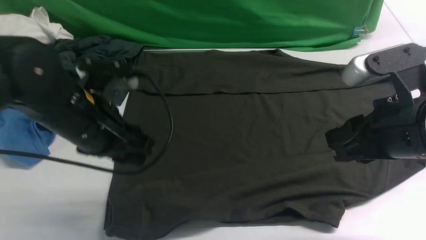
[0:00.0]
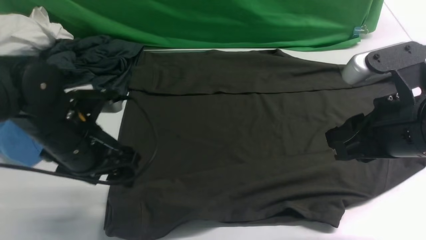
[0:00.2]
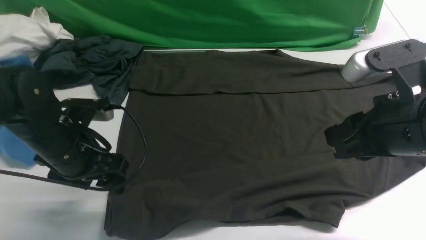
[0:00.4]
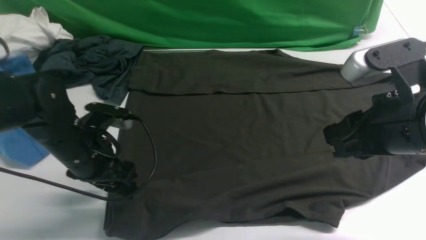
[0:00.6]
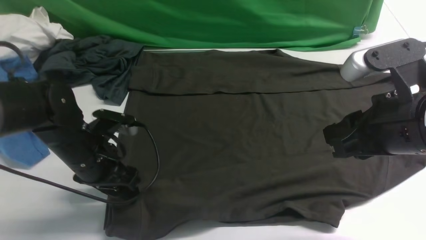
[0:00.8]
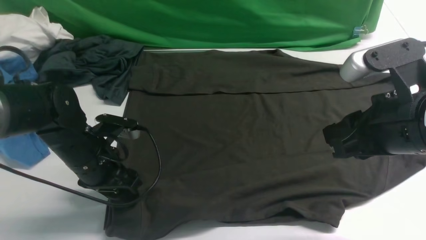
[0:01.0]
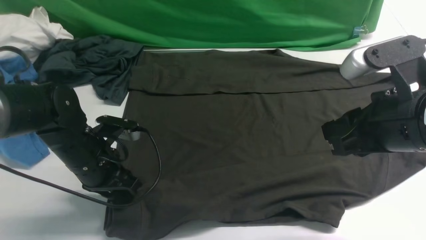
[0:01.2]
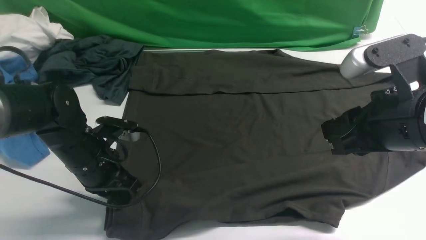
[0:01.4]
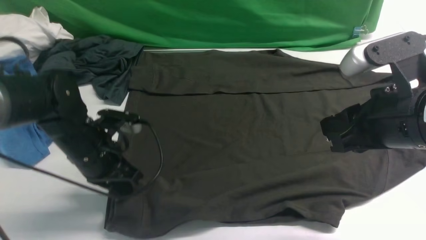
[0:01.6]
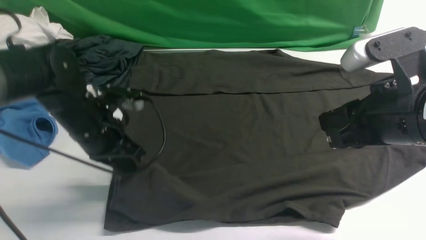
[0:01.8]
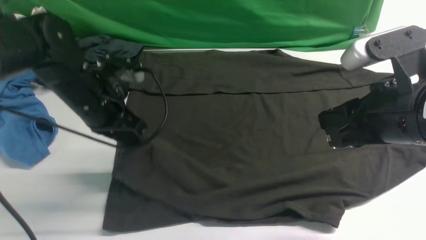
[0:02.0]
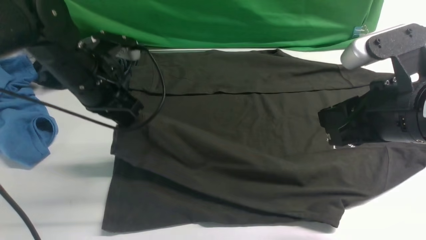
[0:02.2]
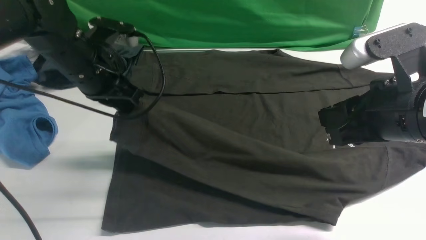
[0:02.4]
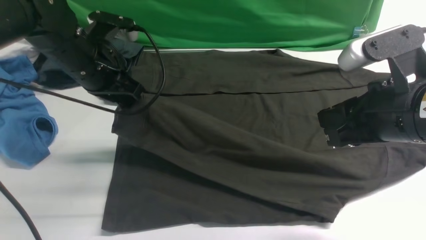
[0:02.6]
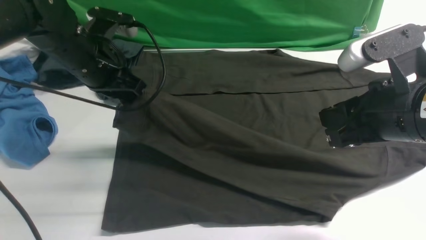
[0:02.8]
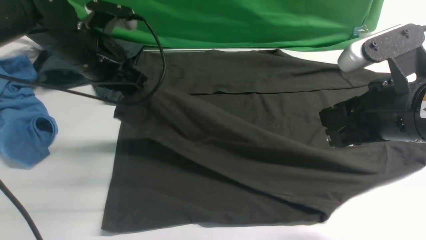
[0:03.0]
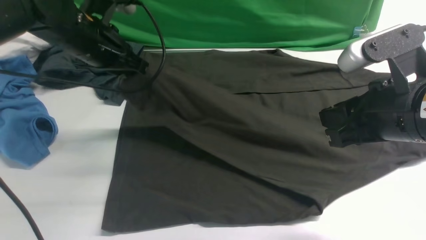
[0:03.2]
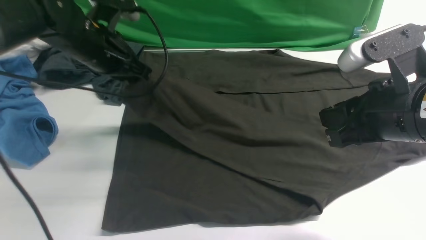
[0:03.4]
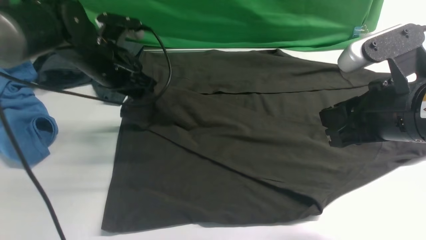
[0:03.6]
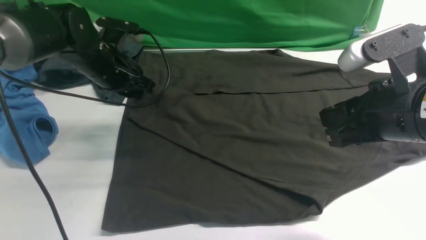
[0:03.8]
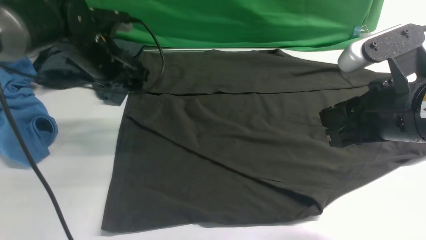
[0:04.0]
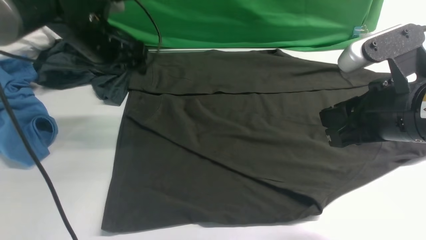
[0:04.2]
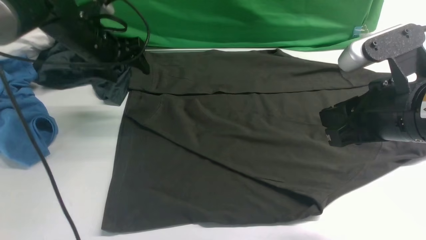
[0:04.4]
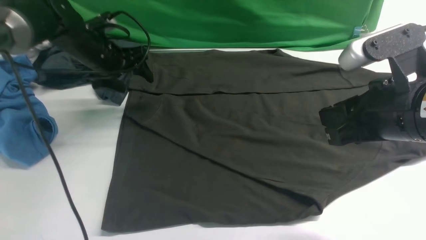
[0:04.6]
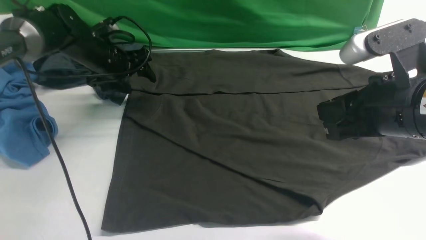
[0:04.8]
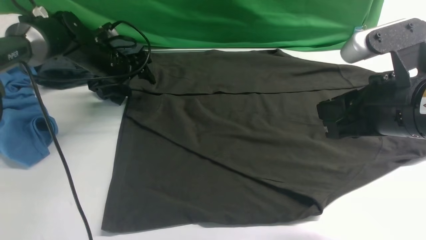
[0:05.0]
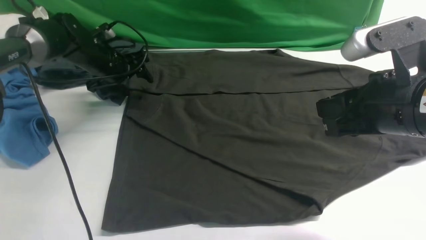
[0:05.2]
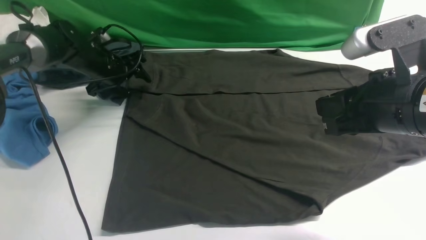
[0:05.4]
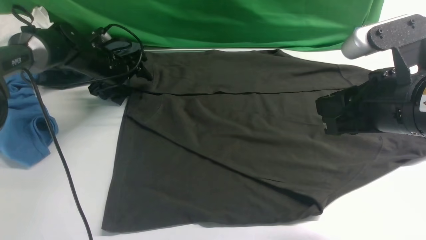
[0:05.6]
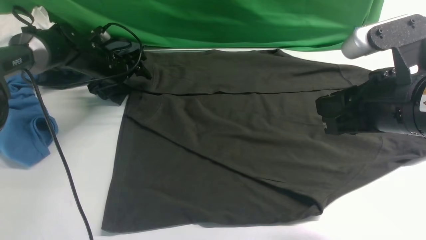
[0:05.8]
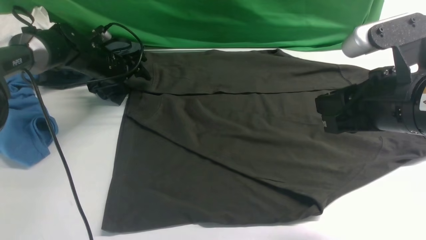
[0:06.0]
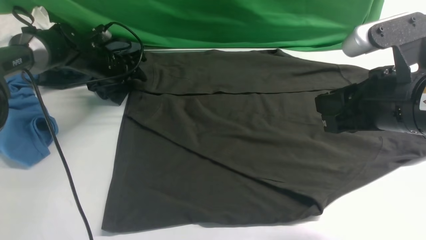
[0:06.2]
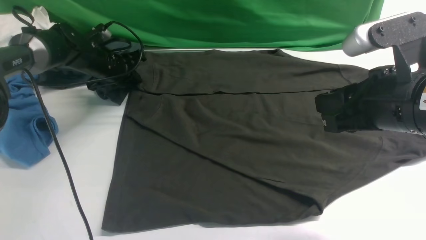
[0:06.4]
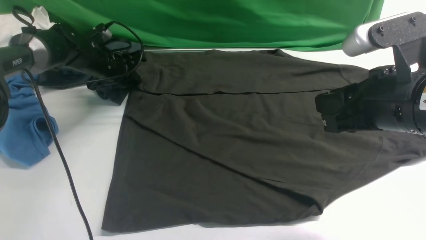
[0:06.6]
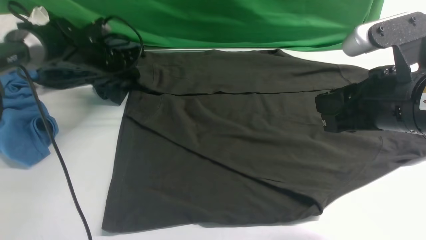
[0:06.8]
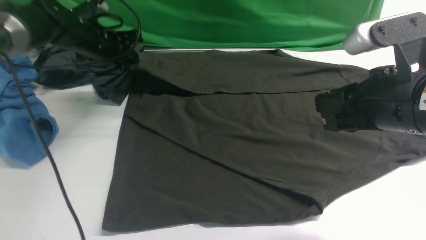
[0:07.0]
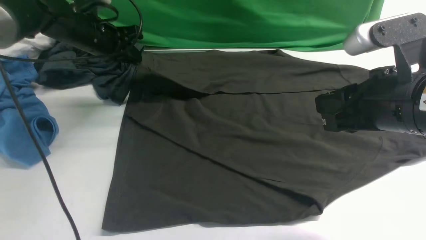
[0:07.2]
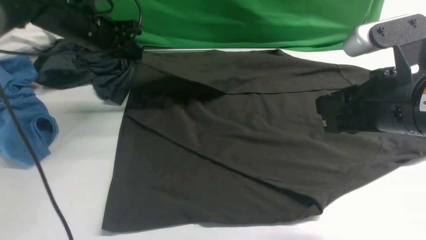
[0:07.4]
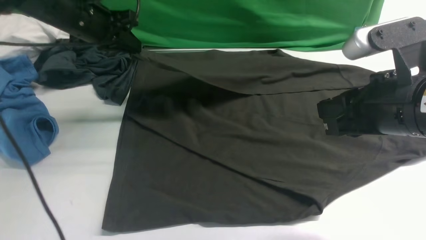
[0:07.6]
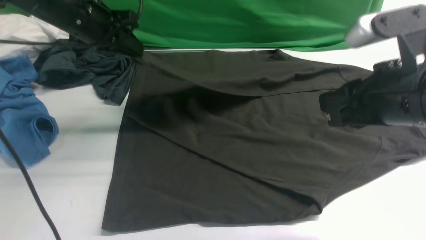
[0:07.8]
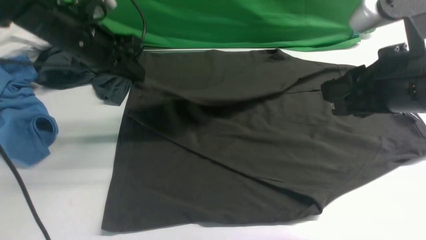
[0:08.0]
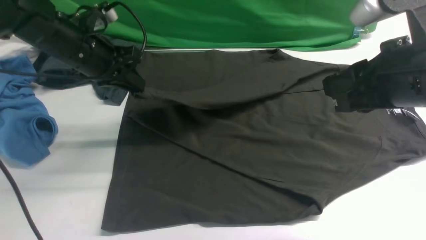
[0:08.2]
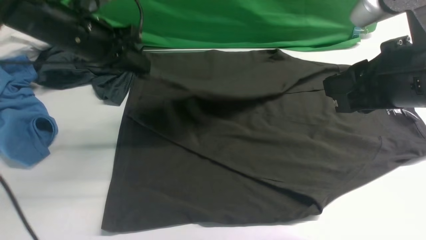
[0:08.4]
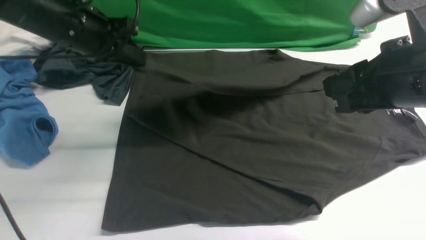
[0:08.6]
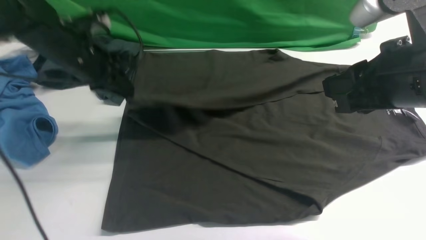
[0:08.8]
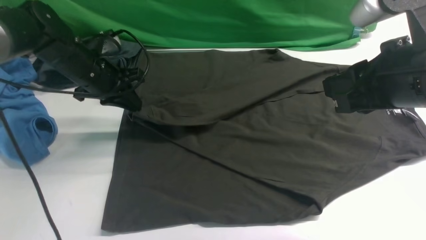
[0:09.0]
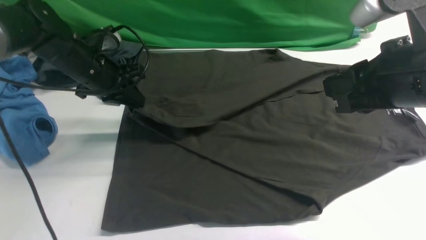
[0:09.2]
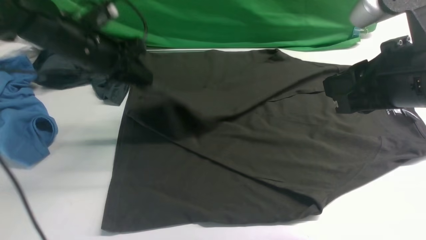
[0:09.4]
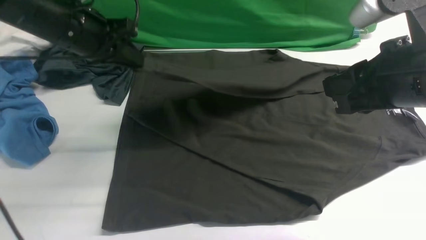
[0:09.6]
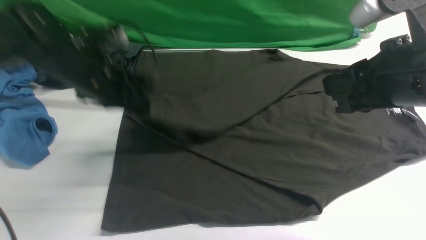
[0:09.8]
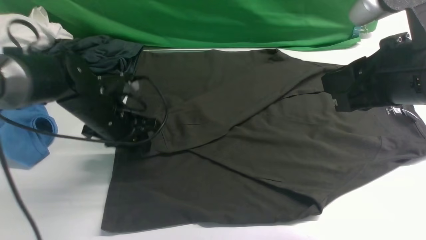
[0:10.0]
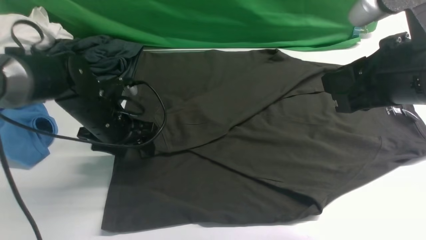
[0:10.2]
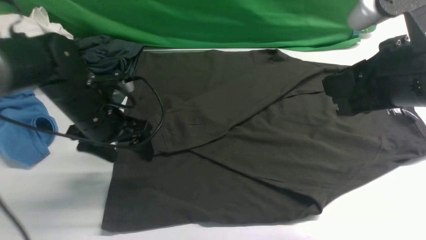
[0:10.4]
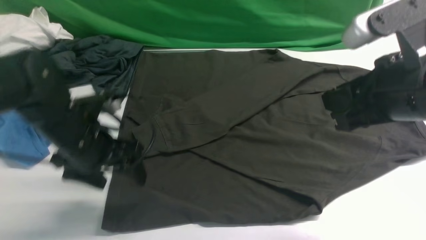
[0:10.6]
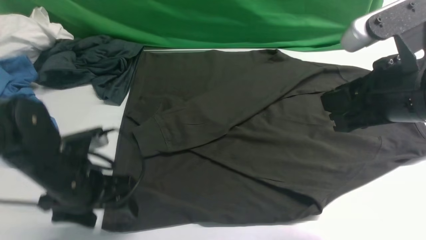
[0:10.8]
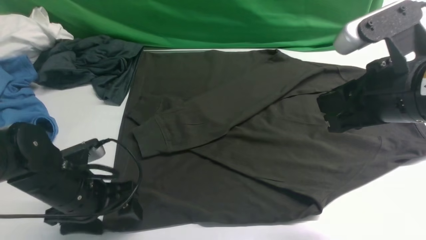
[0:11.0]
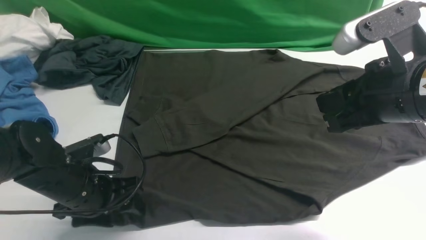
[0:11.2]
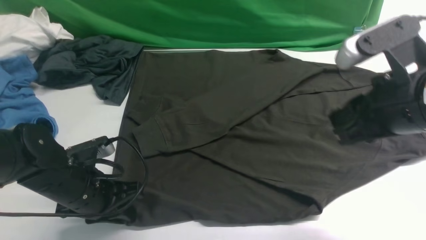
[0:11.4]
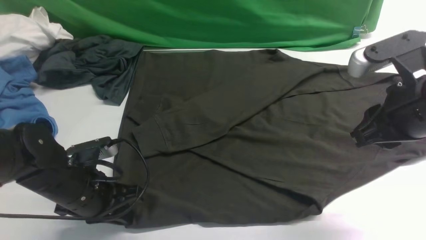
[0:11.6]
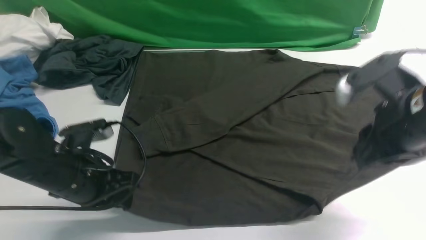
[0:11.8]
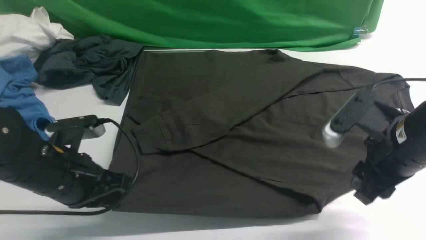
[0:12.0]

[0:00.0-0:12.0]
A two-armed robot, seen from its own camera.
Step, 0:01.8 to 0:03.8: use the left arm to drag and place the cuff at the centered position on the left edge of the fabric.
Step, 0:04.0 to 0:06.8: use the left arm to clamp the cuff farthest from it.
Step, 0:07.0 to 0:10.4: use the left arm to drag and drop the cuff onto the cuff closest to the left arm.
0:00.0 to 0:01.6: The left gripper moves downward, about 10 cm, and closes up.
0:01.6 to 0:03.0: The left gripper is displaced upward and forward by about 15 cm.
0:03.0 to 0:04.4: The left gripper is displaced forward by some 10 cm, and opens.
0:04.4 to 0:06.0: The left gripper goes some 10 cm downward.
0:06.0 to 0:07.6: The left gripper travels upward and backward by about 15 cm, and closes.
0:07.6 to 0:09.0: The left gripper travels downward by about 5 cm.
0:09.0 to 0:10.4: The left gripper moves backward, roughly 10 cm, and opens up.
0:10.4 to 0:12.0: The left gripper shifts about 10 cm backward, and closes its fingers; the right gripper travels downward by about 10 cm, and opens.

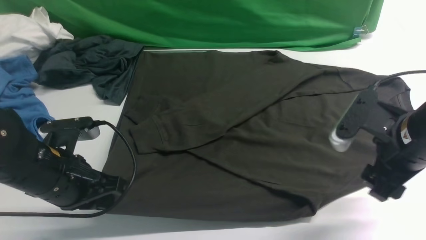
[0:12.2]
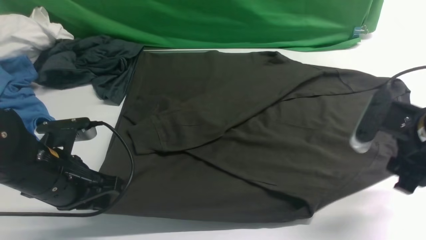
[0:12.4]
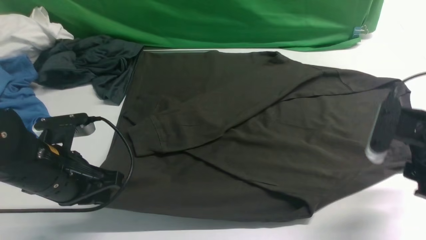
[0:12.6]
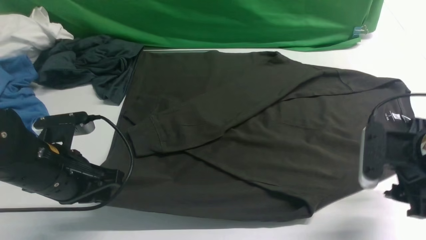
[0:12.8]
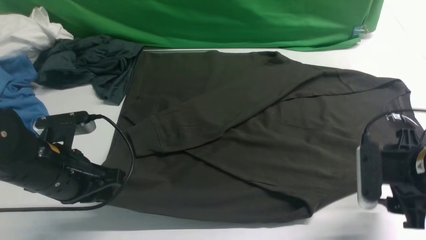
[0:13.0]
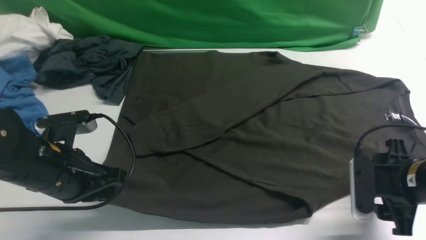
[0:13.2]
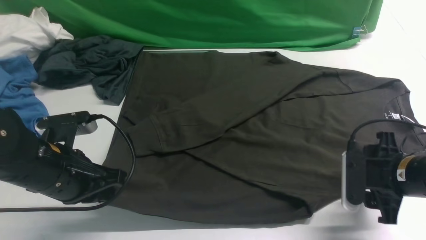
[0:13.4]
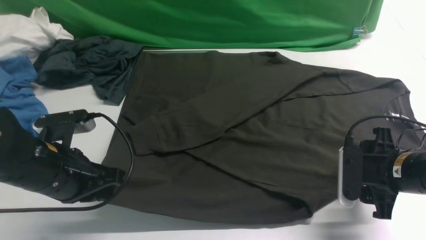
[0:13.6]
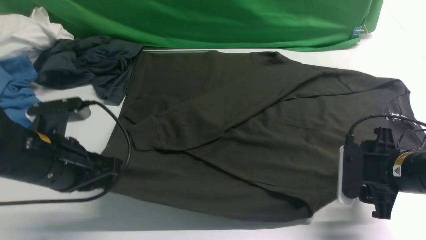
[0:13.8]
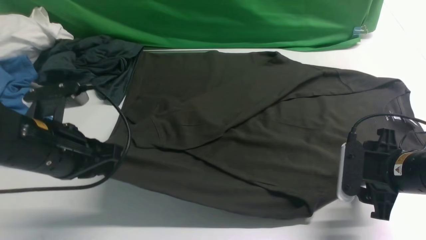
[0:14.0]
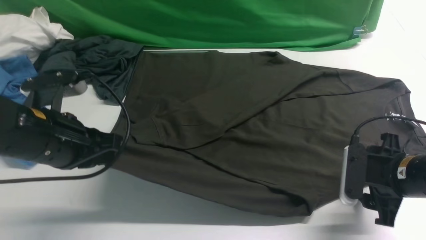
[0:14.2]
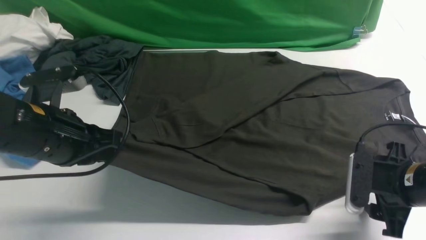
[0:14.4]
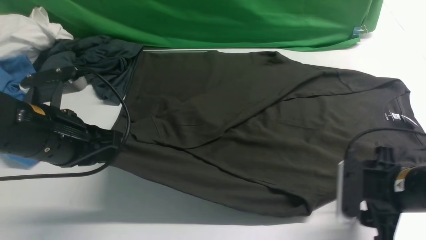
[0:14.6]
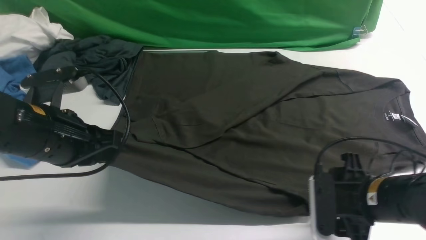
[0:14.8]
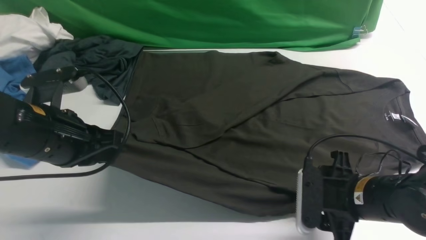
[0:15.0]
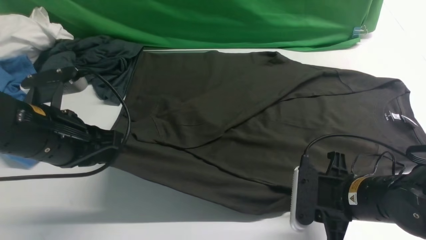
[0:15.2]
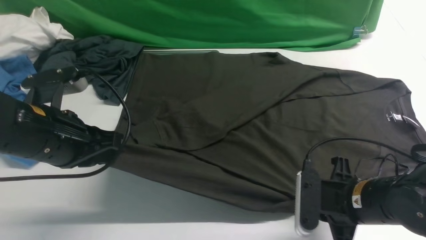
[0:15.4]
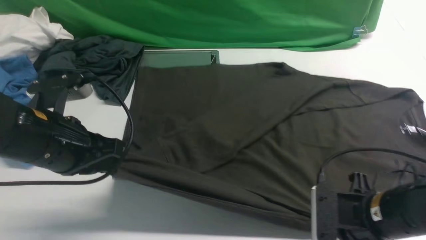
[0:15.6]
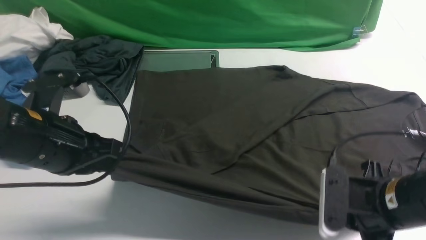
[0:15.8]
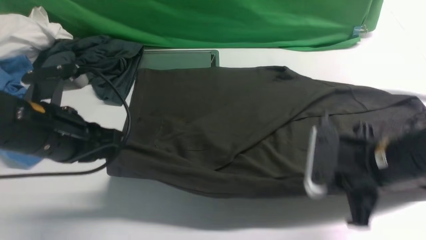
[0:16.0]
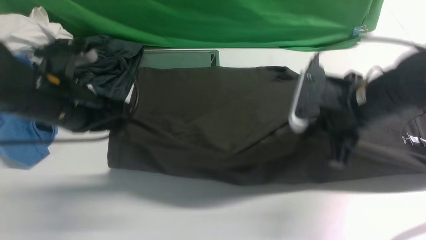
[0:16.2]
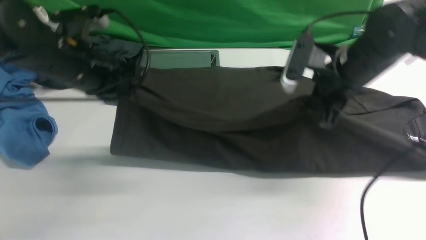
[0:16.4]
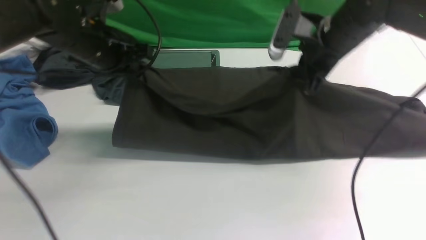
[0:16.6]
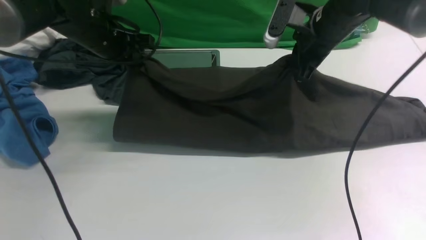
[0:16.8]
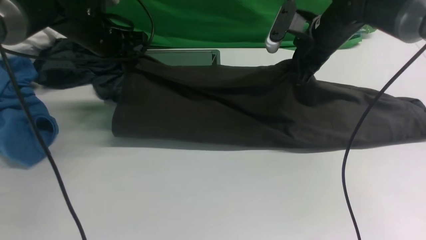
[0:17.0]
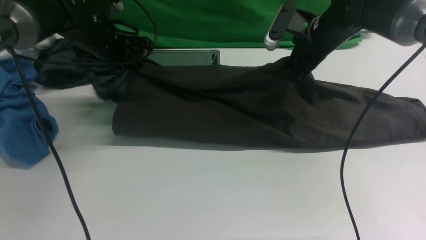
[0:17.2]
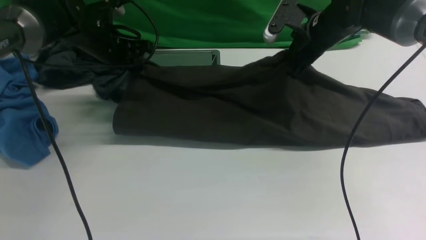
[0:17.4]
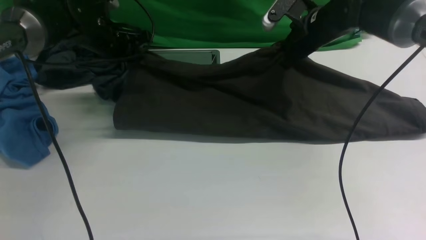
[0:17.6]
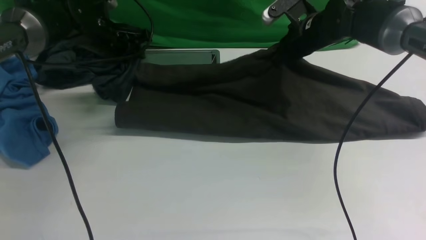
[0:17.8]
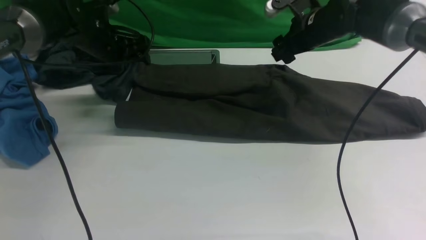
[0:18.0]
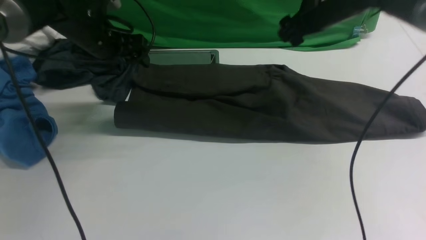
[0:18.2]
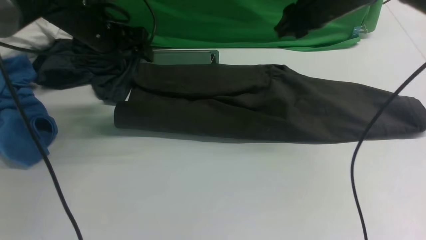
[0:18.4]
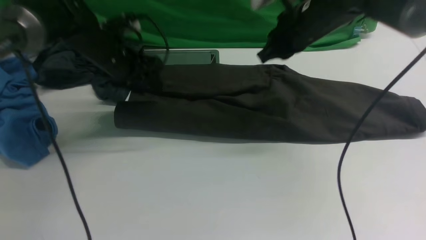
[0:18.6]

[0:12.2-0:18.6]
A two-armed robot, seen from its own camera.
Step, 0:12.2 to 0:15.4: use both arms simultaneously to clamp the lower edge of the clothing fabric.
0:12.2 to 0:13.8: The right gripper heads downward, covering some 10 cm.
0:13.8 to 0:15.4: The right gripper moves to the left, roughly 5 cm, and closes.
0:15.4 to 0:17.0: The left gripper shifts roughly 25 cm forward; the right gripper shifts about 25 cm forward and upward.
0:17.0 to 0:18.6: The left gripper opens. The right gripper opens, then closes again.
